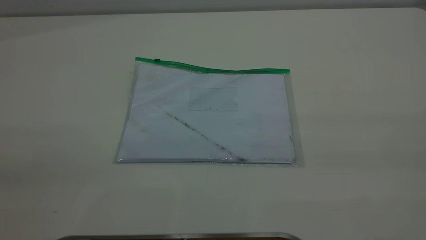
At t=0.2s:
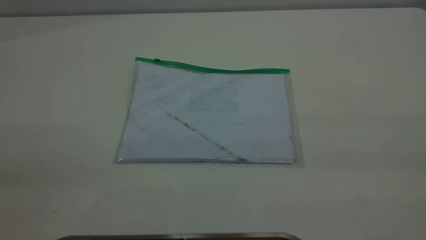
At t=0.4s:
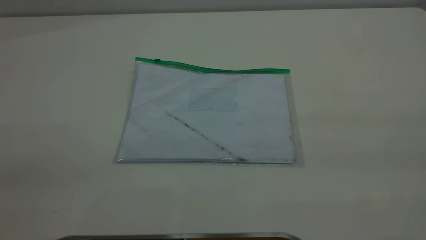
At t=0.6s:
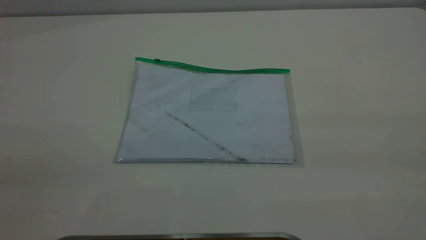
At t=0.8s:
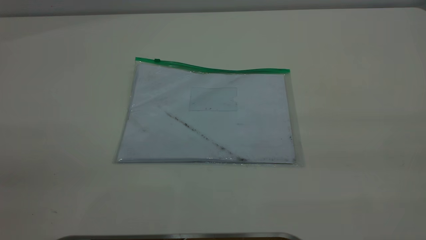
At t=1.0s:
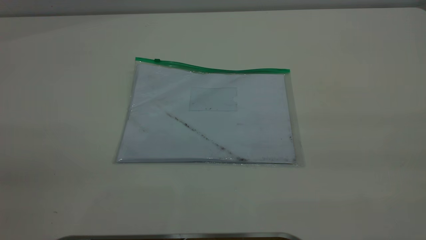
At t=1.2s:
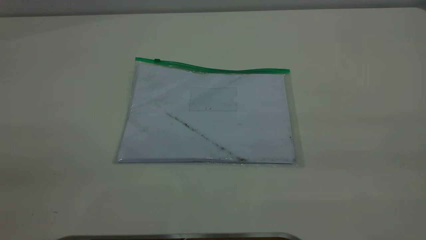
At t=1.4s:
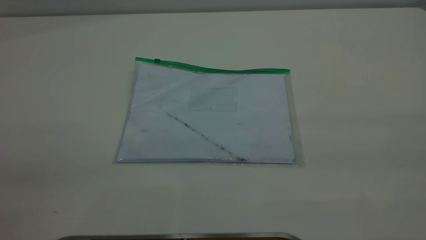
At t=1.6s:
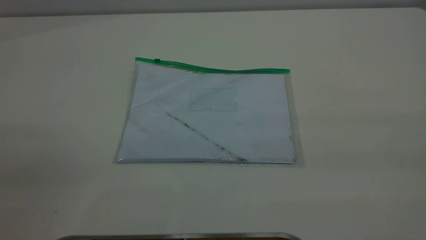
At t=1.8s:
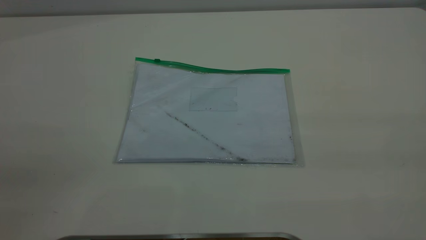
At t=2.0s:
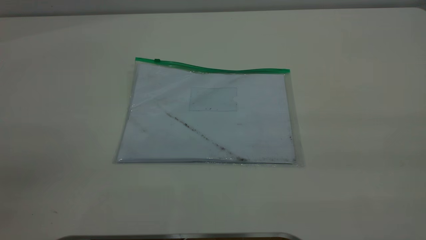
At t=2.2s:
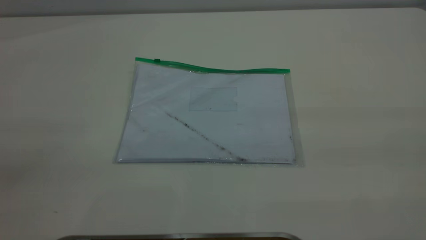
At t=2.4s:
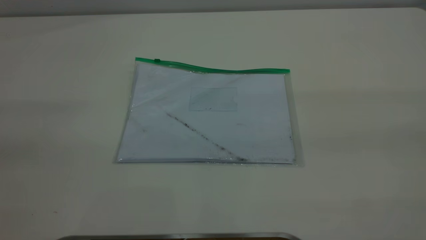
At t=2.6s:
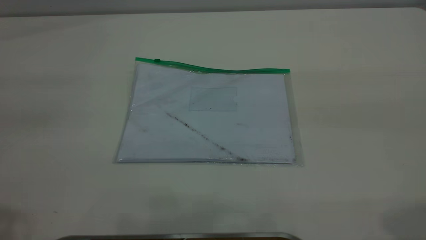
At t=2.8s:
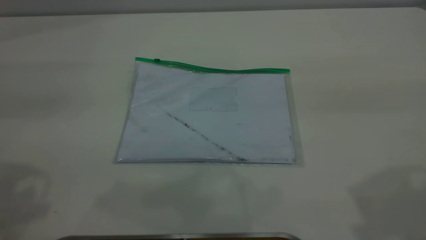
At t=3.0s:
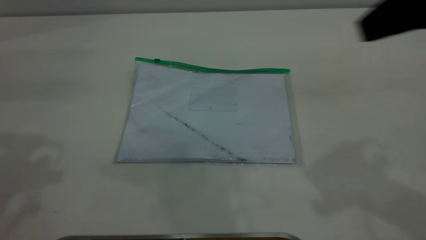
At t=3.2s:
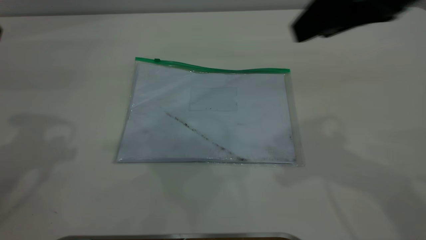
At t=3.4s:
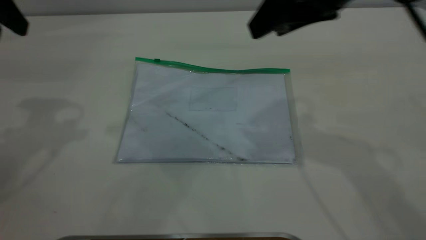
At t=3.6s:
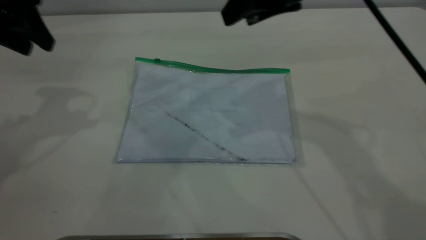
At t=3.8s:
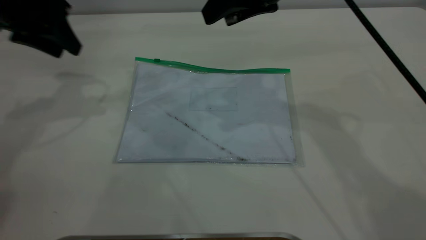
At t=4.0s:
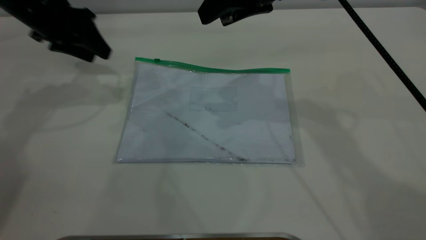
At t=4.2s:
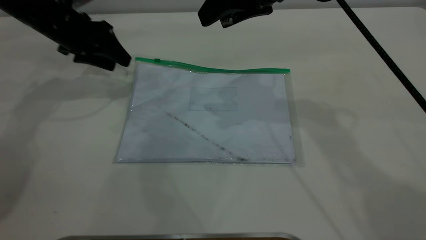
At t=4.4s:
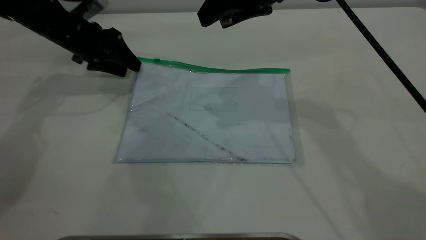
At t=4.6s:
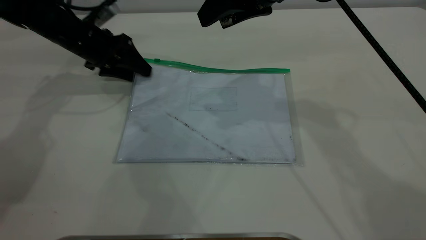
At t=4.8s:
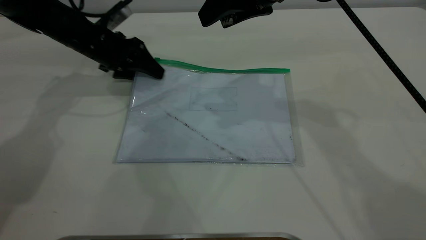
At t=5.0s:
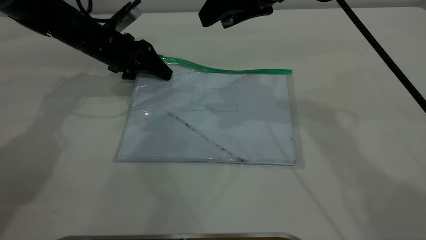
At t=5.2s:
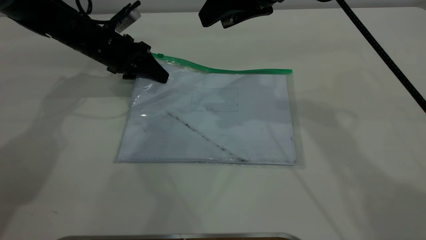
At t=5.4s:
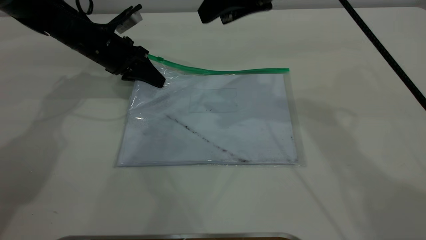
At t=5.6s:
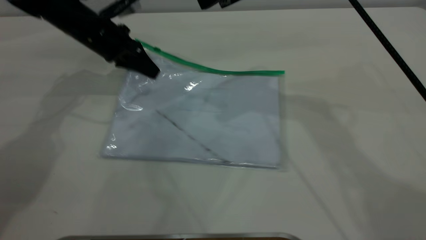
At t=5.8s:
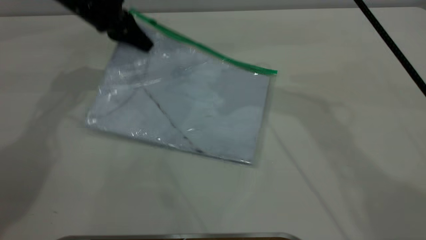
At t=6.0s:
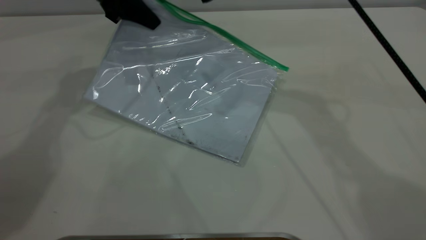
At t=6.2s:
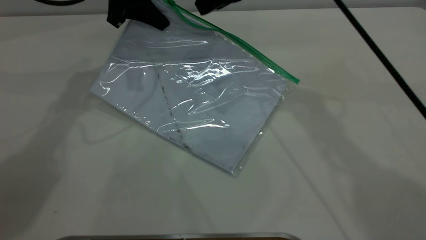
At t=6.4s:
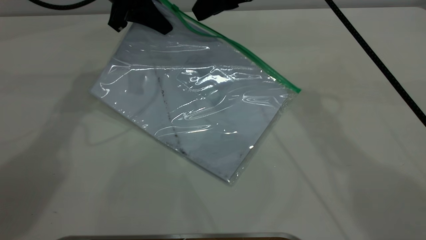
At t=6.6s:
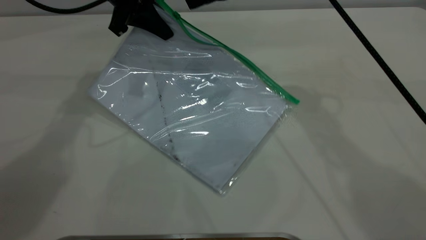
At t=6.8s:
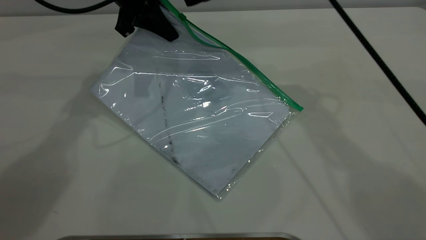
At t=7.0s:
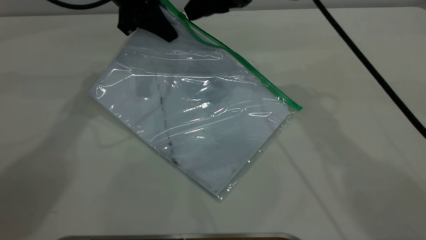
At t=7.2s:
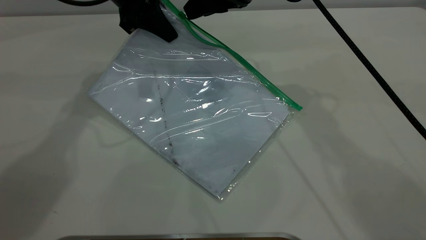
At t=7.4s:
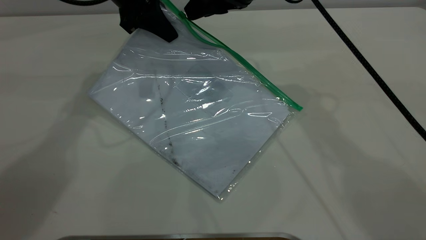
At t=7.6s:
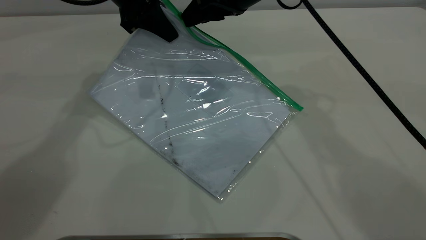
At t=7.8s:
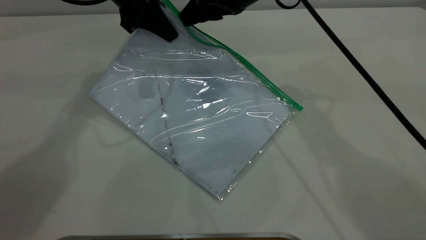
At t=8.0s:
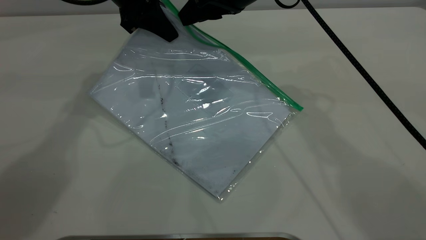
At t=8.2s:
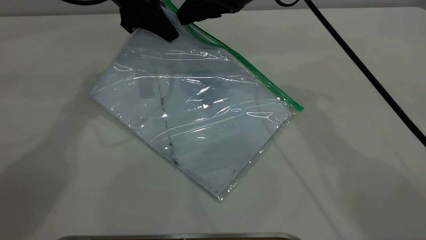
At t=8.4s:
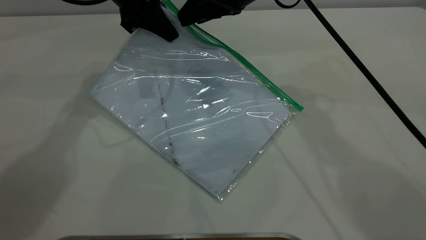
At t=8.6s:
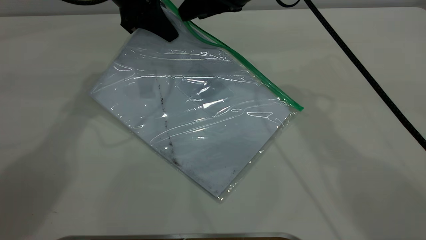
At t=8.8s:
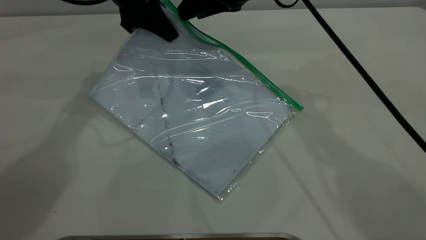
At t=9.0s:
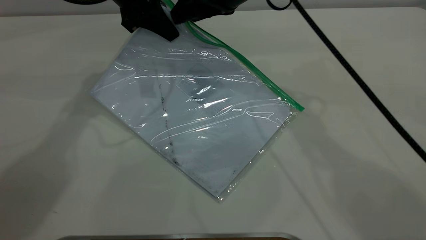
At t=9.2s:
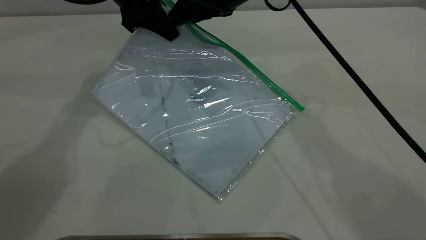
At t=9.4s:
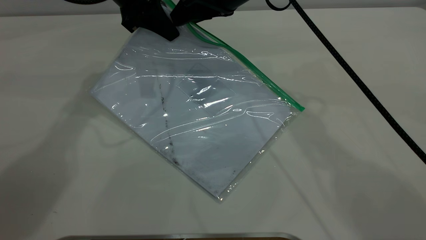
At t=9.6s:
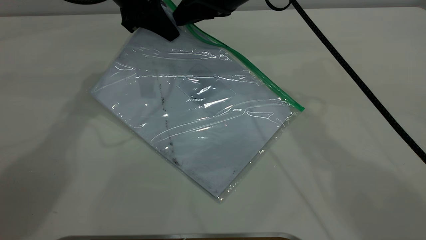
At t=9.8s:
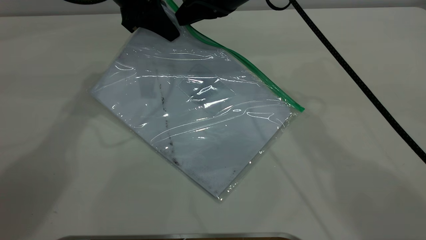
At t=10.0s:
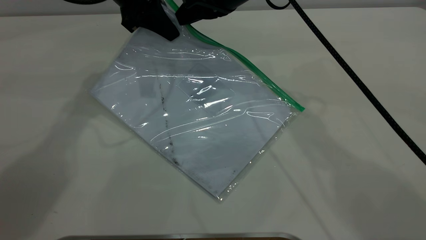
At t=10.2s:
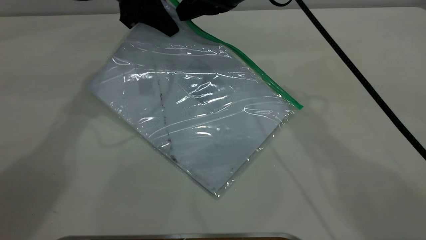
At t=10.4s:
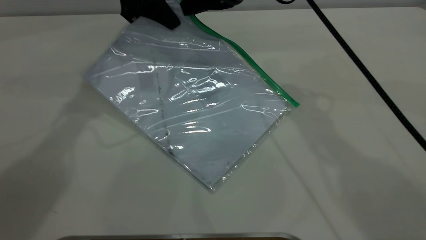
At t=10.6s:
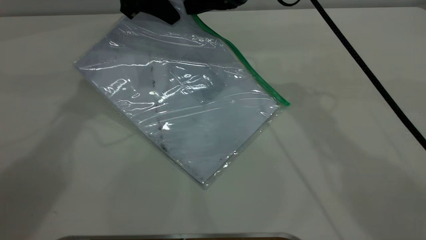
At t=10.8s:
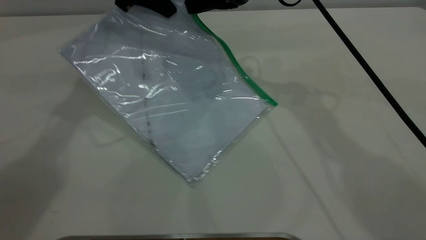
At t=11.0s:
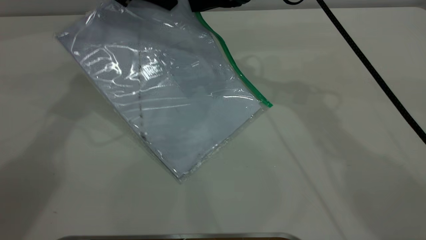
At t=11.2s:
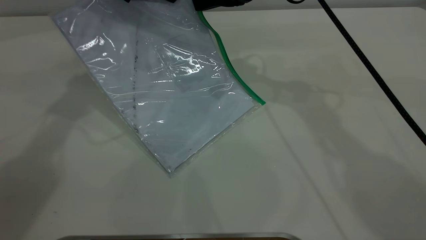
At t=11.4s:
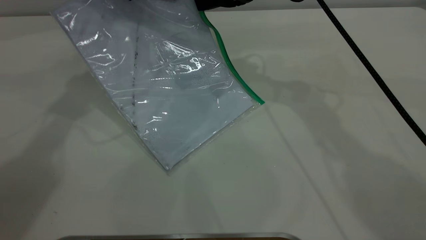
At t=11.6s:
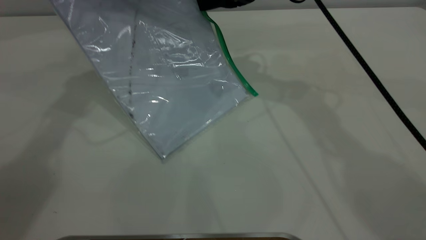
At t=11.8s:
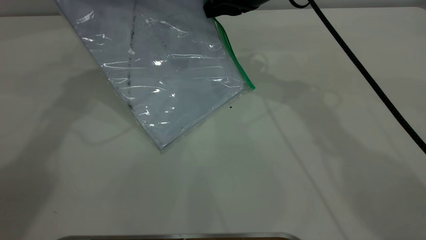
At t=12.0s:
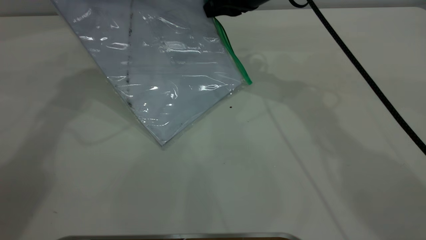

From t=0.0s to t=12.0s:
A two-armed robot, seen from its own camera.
Step, from t=0.0s to t=5.6s: Pick up the transparent plastic bag with the left gripper.
From t=0.0s to t=1.6s: Neither gripper changes place.
From t=1.6s to t=3.0s: The right gripper heads forward, covering some 25 cm.
From t=3.0s to t=4.4s: The right gripper is displaced forward, to the left and downward by some 20 cm, while the left gripper heads forward and downward, covering approximately 30 cm.
From t=4.4s to t=6.0s: The left gripper shifts approximately 15 cm upward and to the right, and closes up.
From t=6.0s to t=7.6s: The right gripper goes roughly 5 cm downward.
From t=7.6s to t=9.0s: The grippers stay close to where they were, moving slightly.
From t=9.0s to t=10.4s: The right gripper closes its fingers.
From t=10.4s to t=12.0s: The left gripper shifts about 5 cm upward.

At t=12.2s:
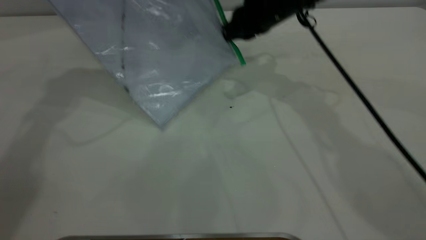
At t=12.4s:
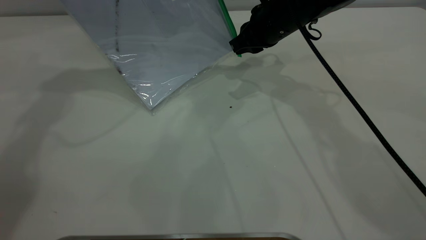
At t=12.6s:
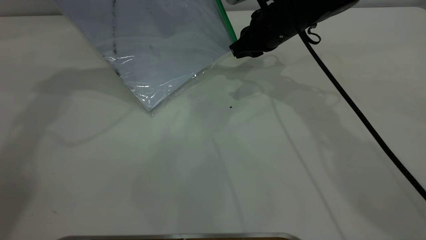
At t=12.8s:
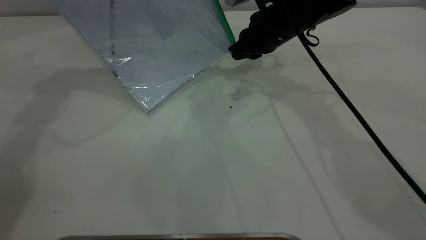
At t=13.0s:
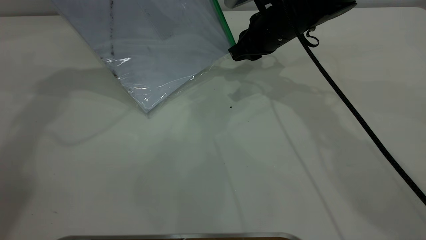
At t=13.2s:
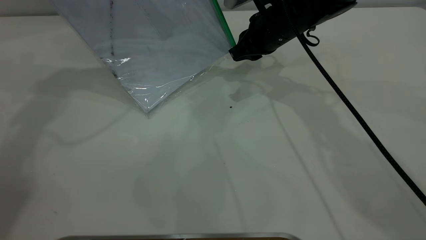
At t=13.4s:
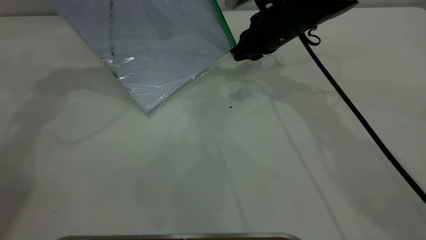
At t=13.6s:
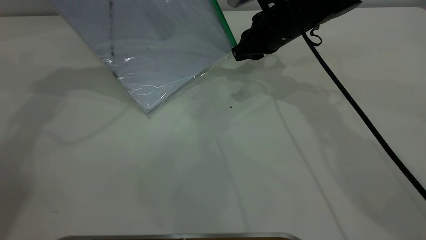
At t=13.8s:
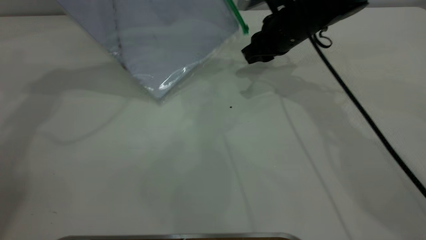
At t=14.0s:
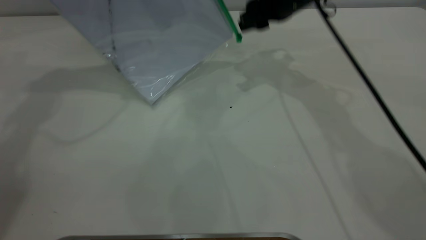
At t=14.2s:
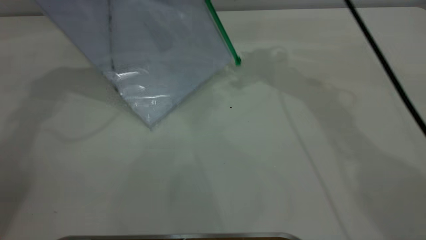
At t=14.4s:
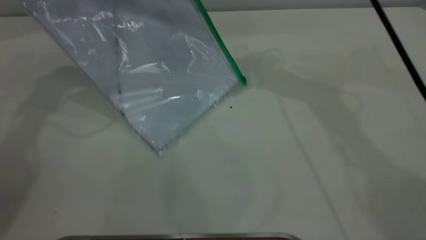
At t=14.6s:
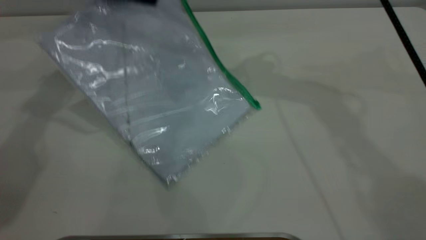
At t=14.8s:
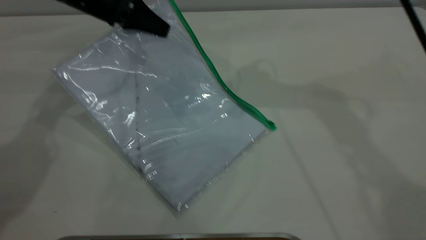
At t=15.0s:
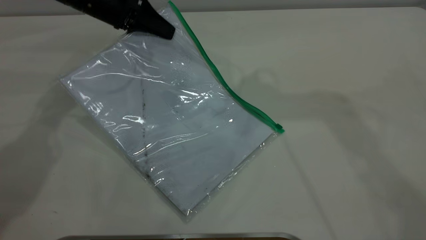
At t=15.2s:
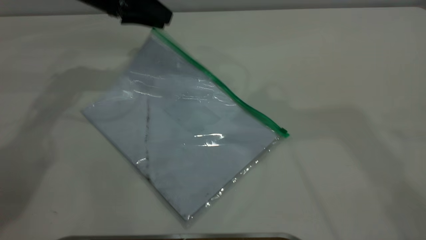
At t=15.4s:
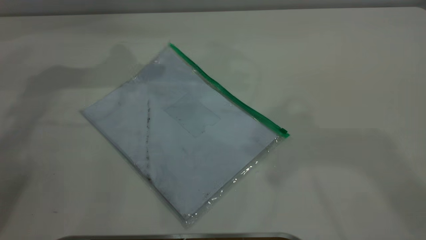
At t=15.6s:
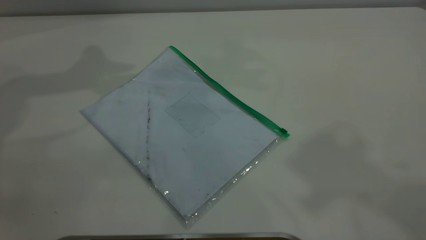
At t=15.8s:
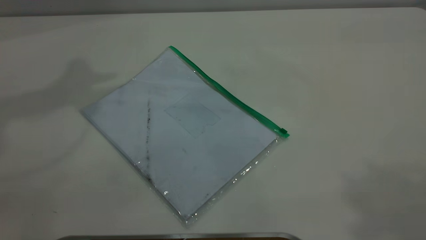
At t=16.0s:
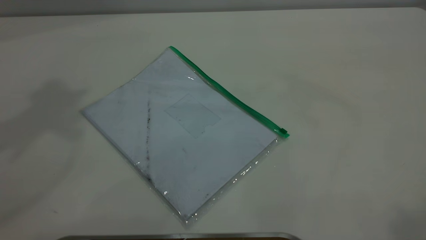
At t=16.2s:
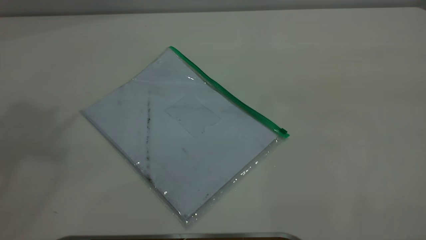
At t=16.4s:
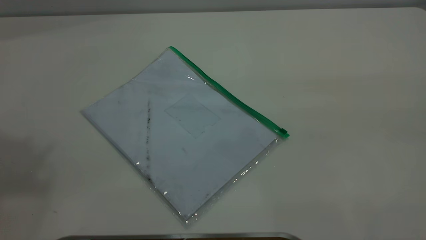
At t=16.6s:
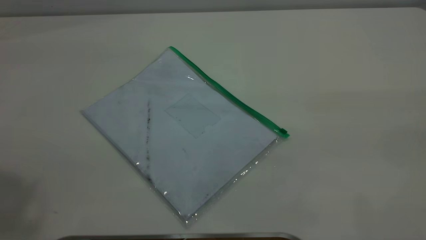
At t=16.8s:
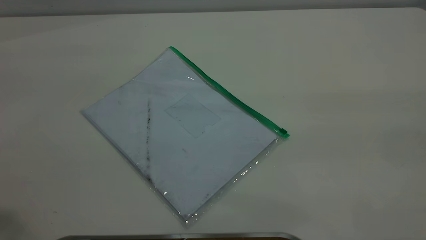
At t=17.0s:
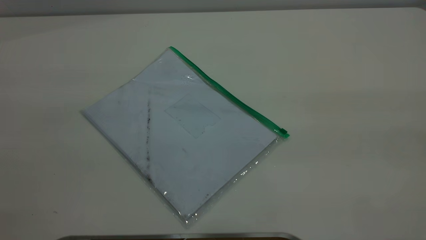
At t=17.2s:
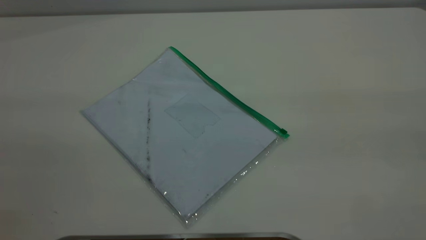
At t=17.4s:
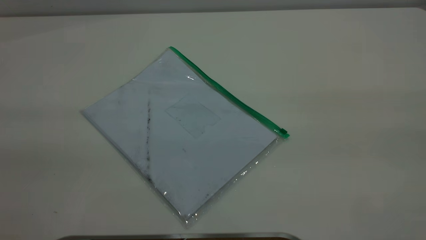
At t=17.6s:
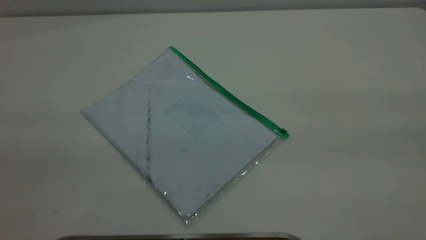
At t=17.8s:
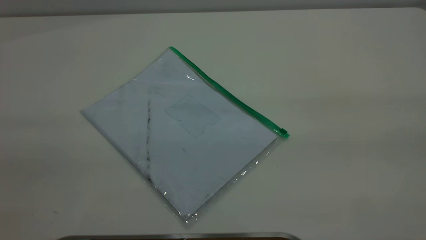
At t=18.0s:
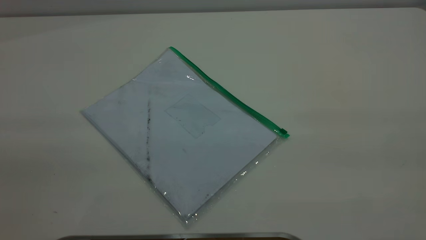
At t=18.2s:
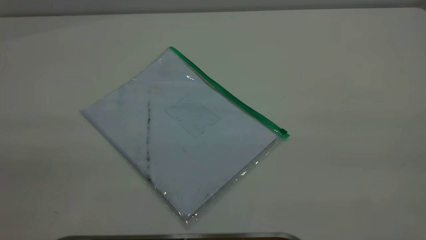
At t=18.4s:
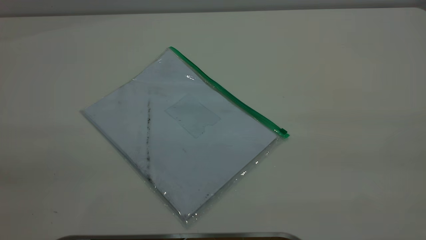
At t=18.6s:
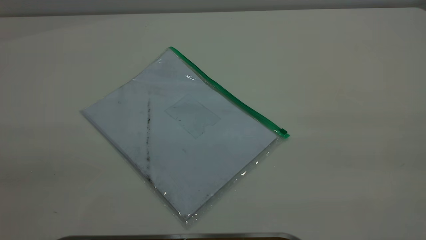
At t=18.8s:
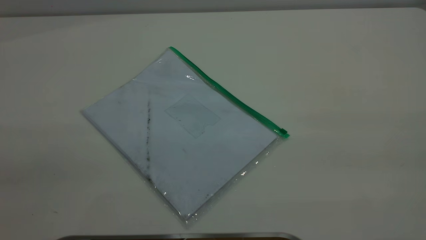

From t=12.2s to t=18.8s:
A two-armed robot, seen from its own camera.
Step, from t=13.8s to t=15.2s: Place the transparent plastic bag.
From t=12.2s to t=13.8s: The right gripper opens.
From t=13.8s to t=15.4s: The right gripper goes roughly 40 cm upward and backward, and opens its fingers. The left gripper reaches about 15 cm downward, then returns, and opens.
